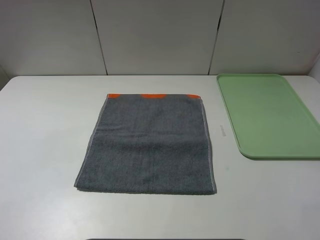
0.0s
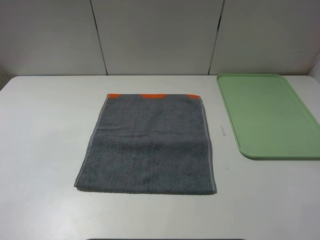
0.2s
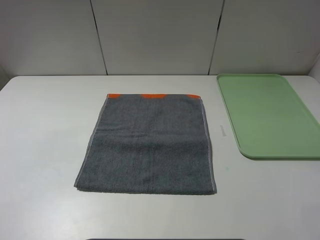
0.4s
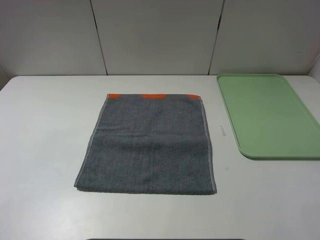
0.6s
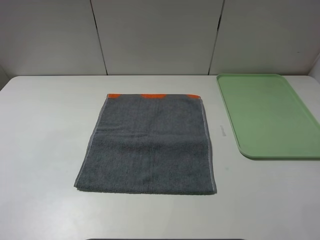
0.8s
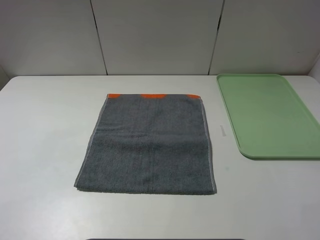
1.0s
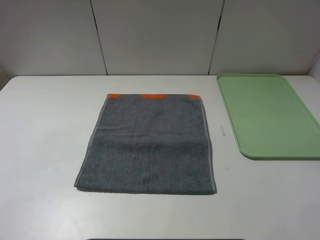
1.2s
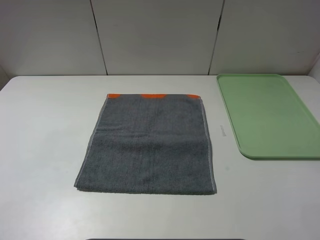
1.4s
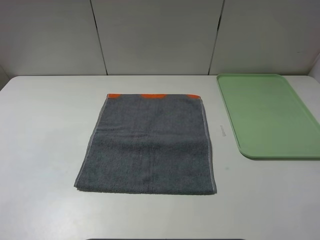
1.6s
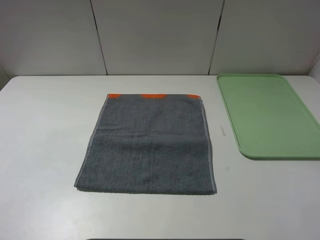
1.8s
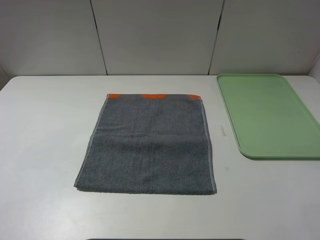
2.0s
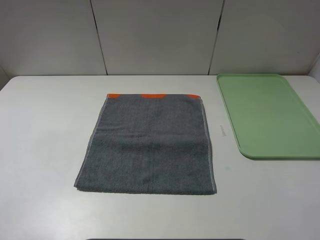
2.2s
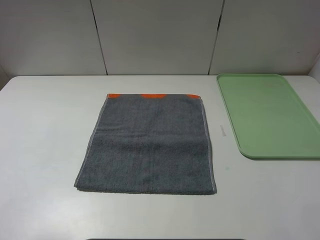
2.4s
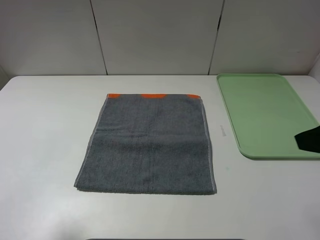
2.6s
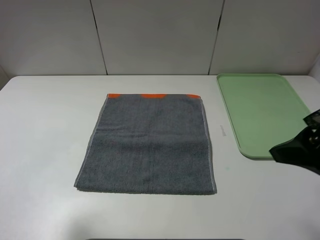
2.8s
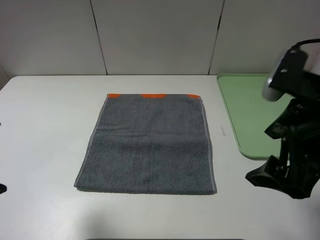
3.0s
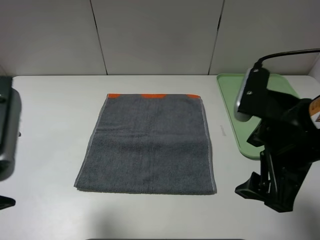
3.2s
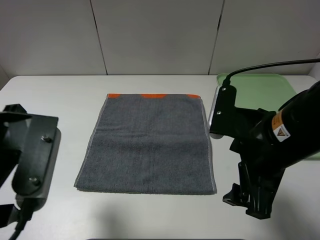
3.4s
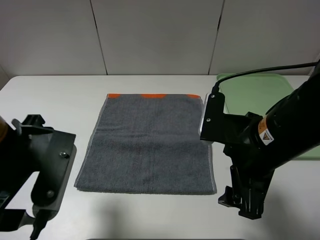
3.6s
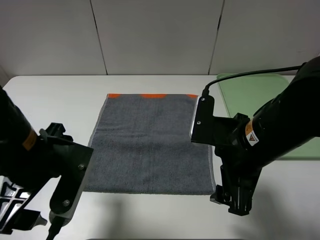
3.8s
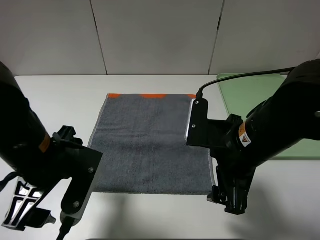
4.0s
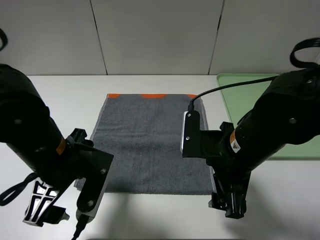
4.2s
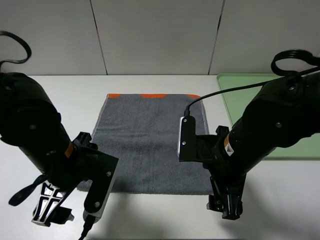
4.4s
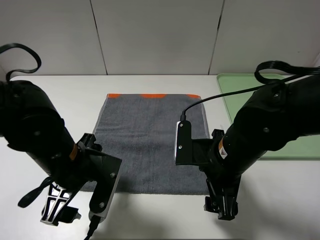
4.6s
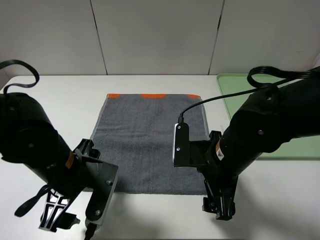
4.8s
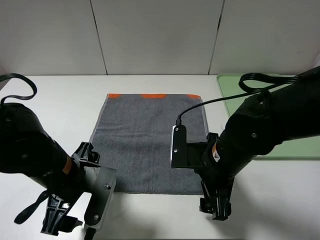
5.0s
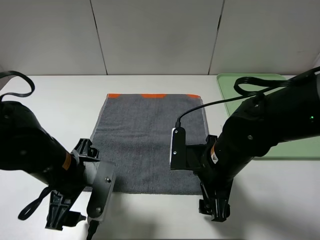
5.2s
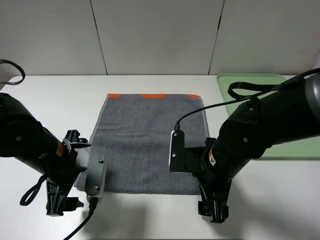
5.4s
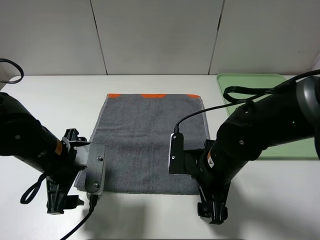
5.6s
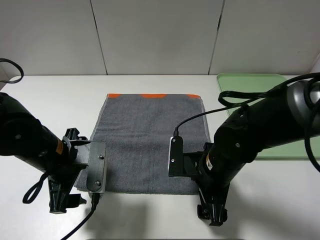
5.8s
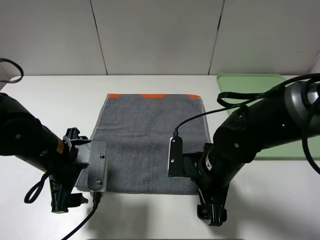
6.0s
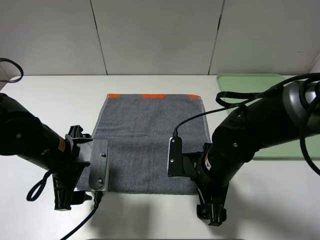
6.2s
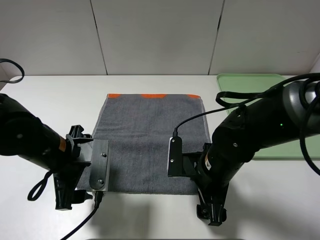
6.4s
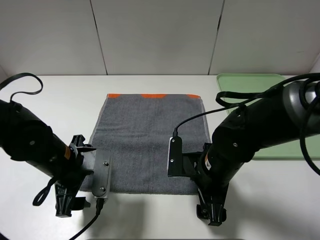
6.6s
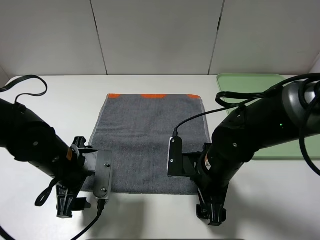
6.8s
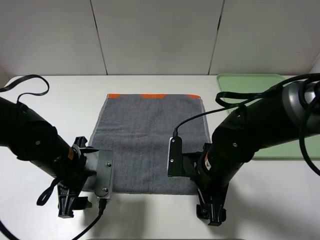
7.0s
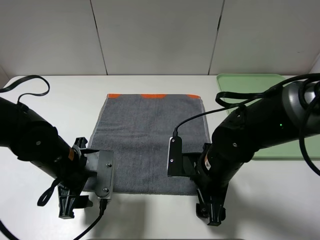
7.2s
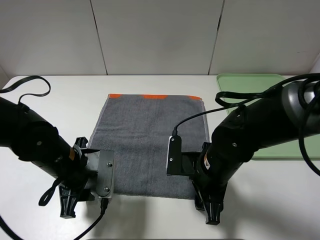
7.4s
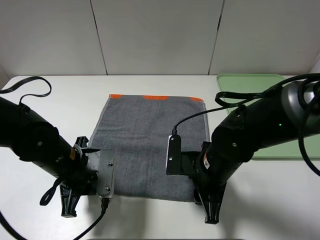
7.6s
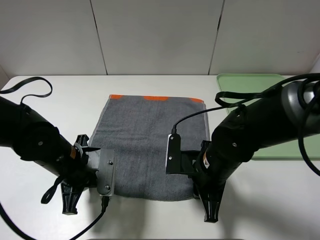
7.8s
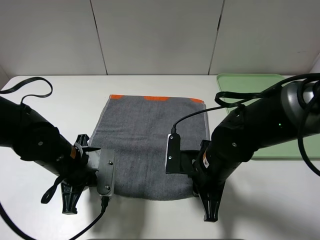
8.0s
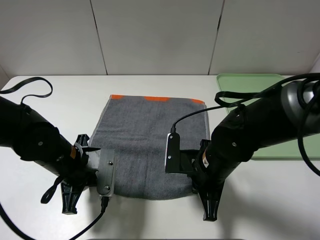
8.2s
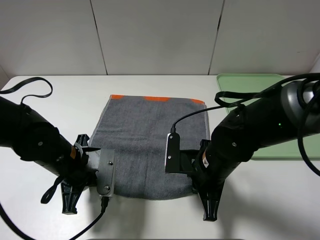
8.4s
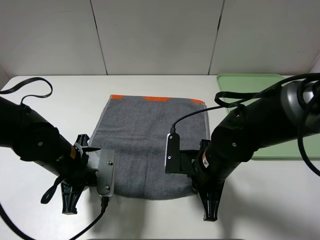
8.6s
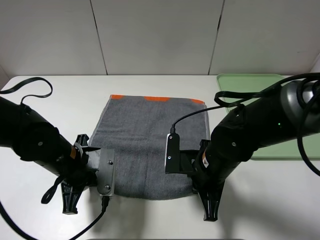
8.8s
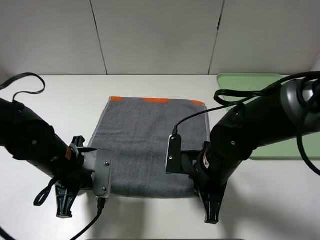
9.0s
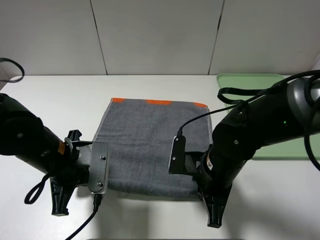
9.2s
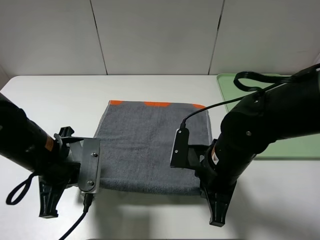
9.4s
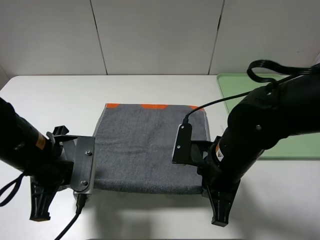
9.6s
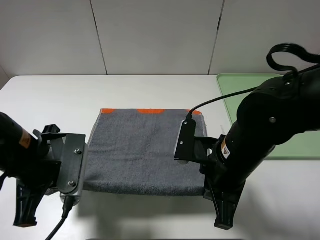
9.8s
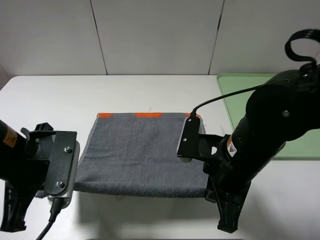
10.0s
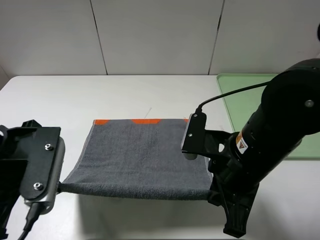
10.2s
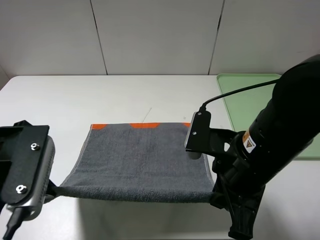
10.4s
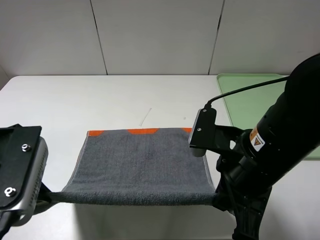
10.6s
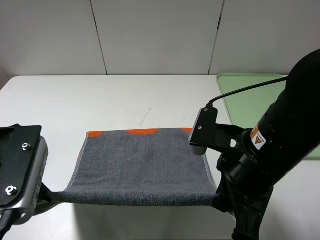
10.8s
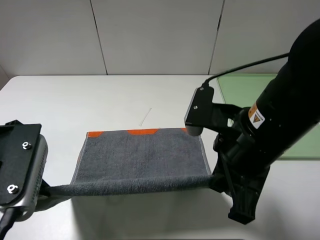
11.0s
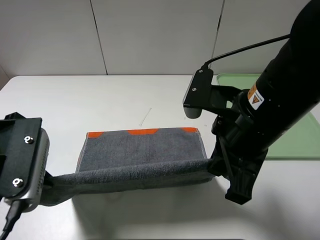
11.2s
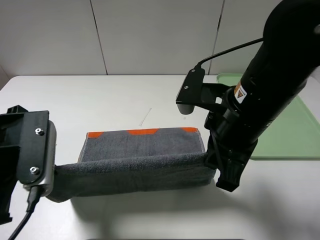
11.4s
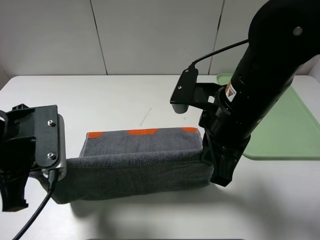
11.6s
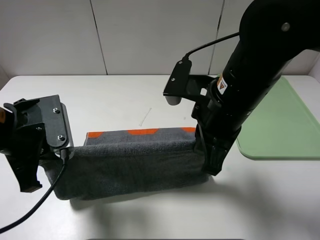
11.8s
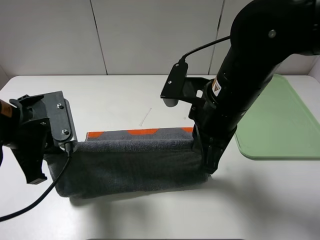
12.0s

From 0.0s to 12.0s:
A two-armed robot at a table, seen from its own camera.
From 0.0s to 1.6s: Both grippers stay put.
From 1.6s to 3.0s: The right gripper heads forward and to the left, covering roughly 20 cm. The left gripper travels forward and to the right by approximately 15 cm.
From 3.0s to 4.4s: The right gripper travels downward and to the left by about 15 cm. Meanwhile the left gripper is displaced downward and to the right by approximately 20 cm.
From 4.4s to 6.0s: The right gripper moves downward, about 5 cm.
From 6.0s to 7.6s: The left gripper closes up. Meanwhile the right gripper closes its fingers.
From 7.6s to 9.0s: The right gripper closes.
From 9.0s to 10.4s: The left gripper heads upward and backward, covering about 15 cm. The right gripper moves upward, about 10 cm.
From 10.4s to 12.0s: The two grippers go approximately 5 cm forward.

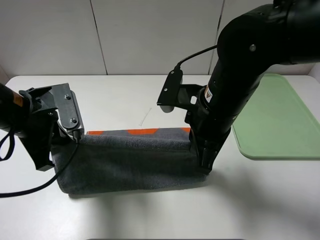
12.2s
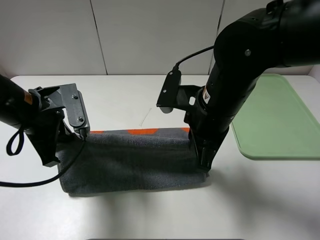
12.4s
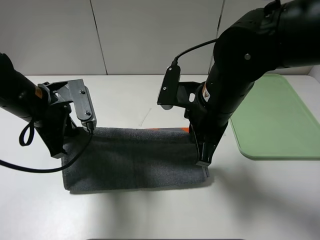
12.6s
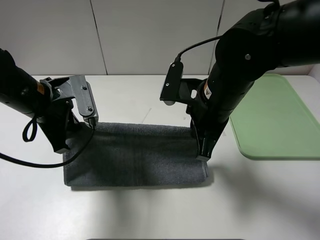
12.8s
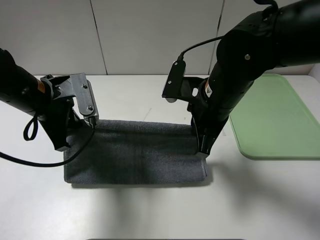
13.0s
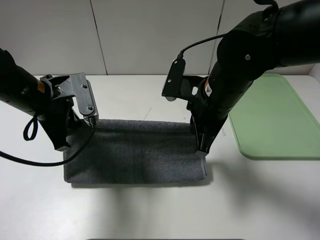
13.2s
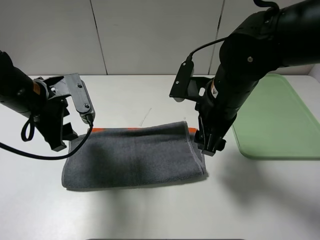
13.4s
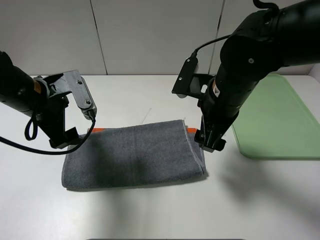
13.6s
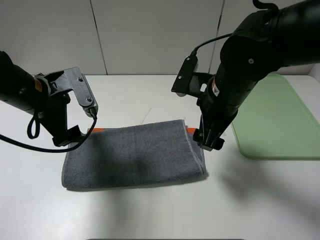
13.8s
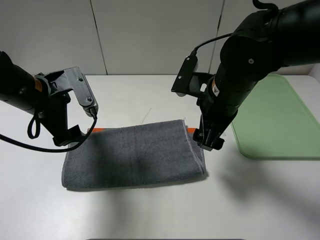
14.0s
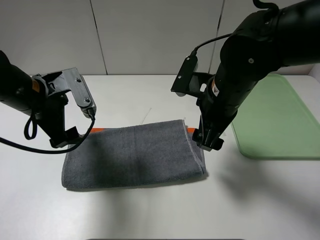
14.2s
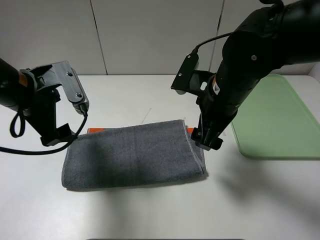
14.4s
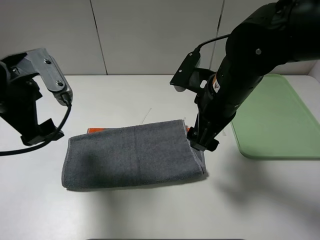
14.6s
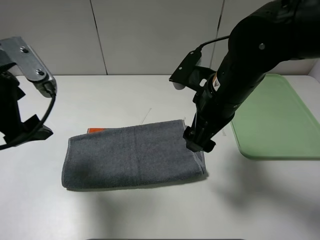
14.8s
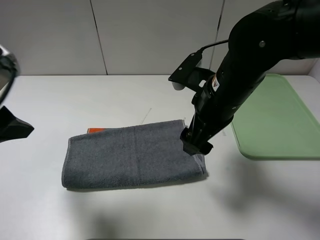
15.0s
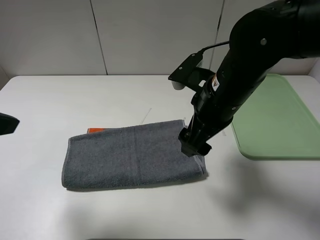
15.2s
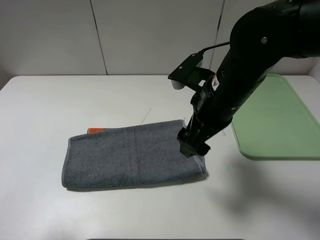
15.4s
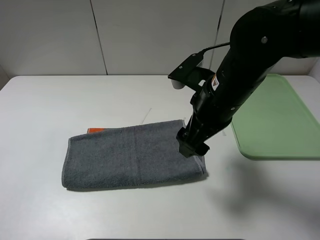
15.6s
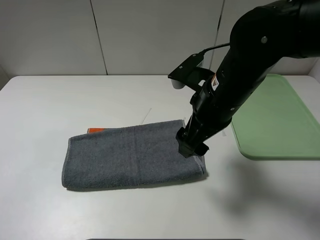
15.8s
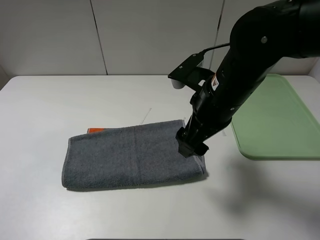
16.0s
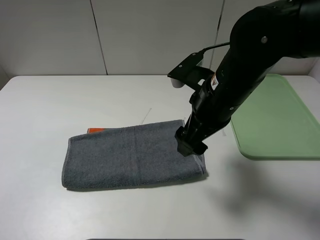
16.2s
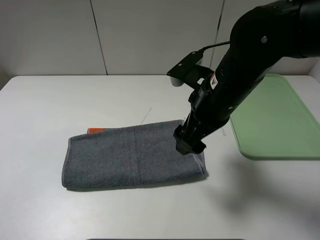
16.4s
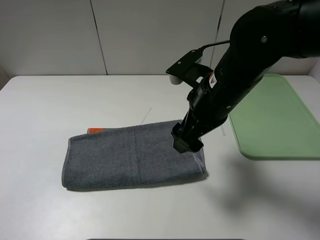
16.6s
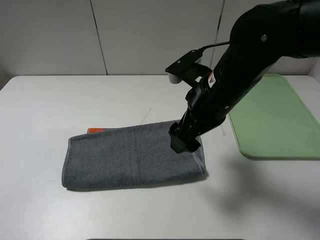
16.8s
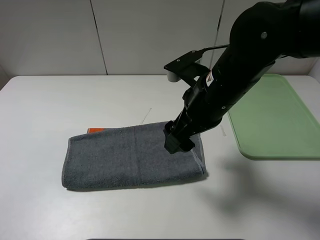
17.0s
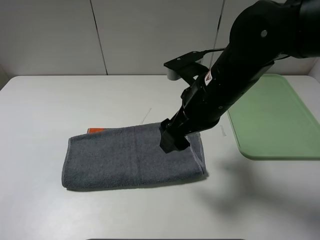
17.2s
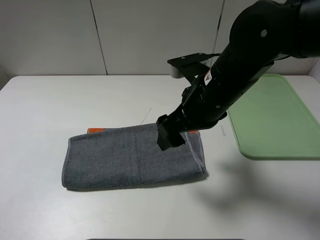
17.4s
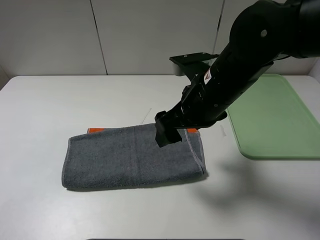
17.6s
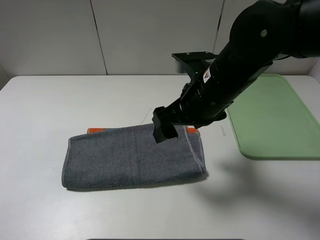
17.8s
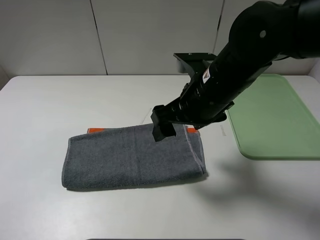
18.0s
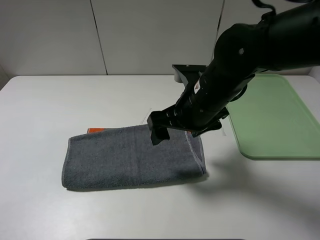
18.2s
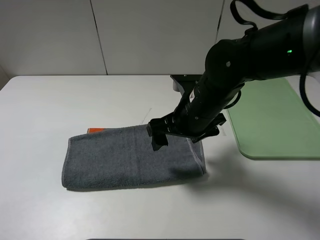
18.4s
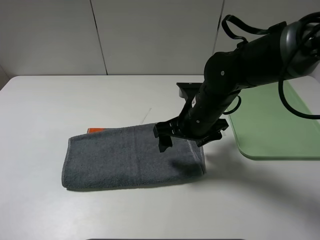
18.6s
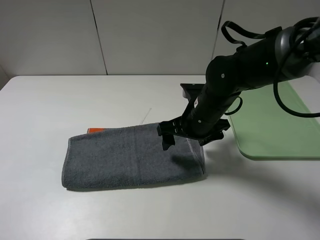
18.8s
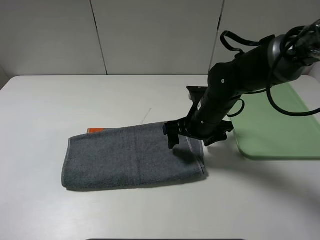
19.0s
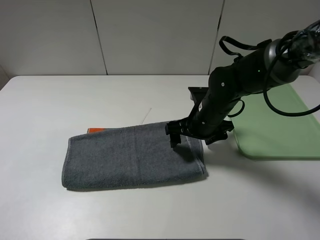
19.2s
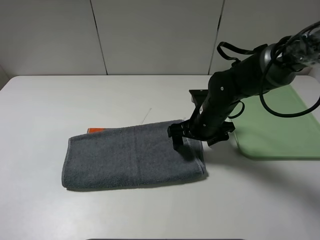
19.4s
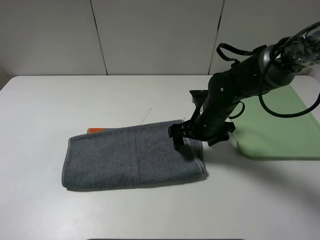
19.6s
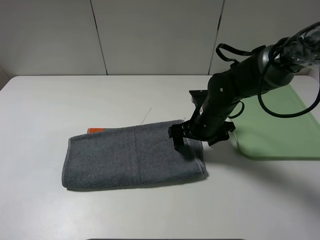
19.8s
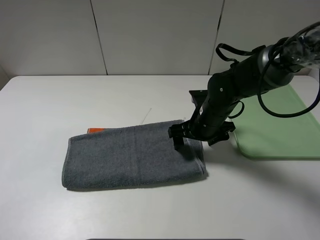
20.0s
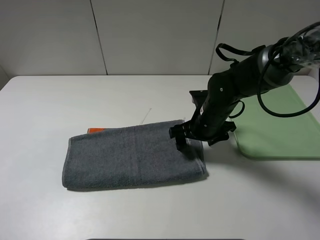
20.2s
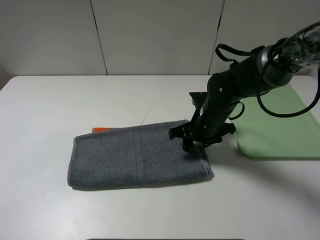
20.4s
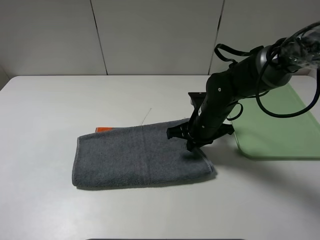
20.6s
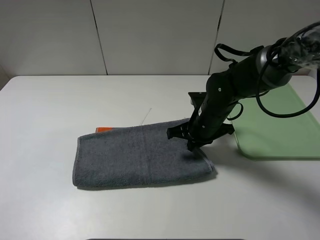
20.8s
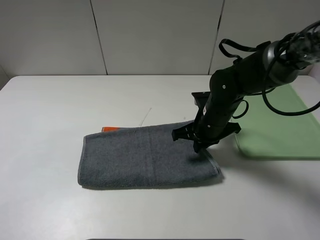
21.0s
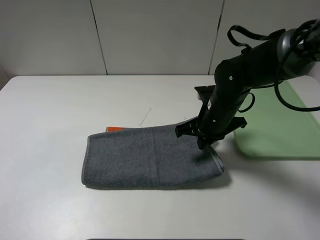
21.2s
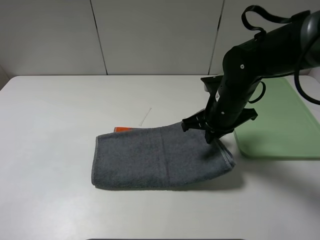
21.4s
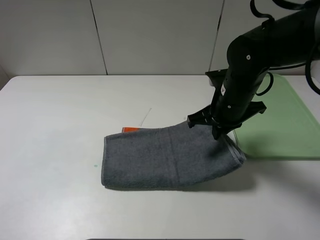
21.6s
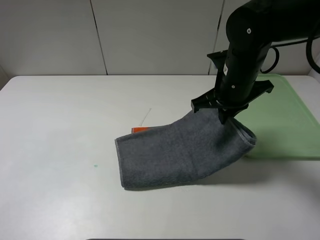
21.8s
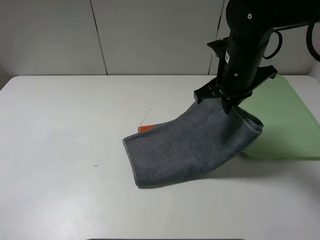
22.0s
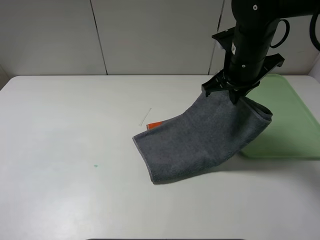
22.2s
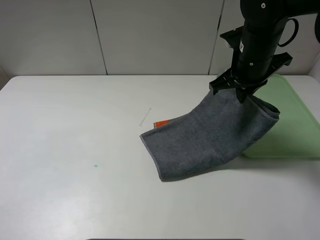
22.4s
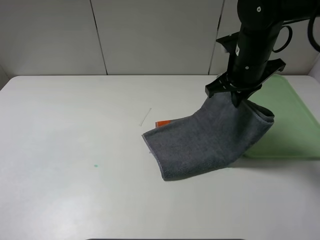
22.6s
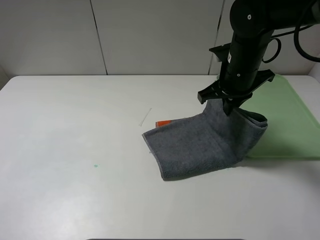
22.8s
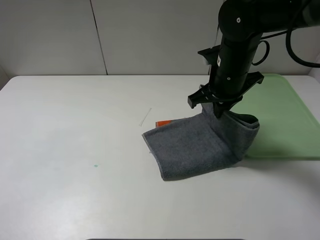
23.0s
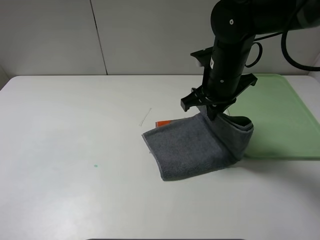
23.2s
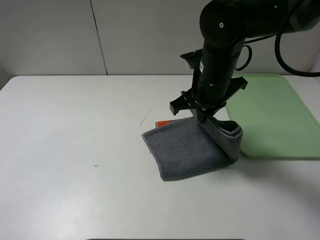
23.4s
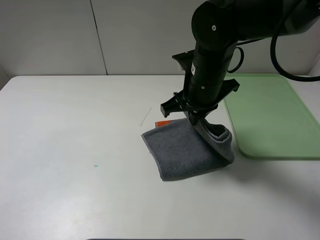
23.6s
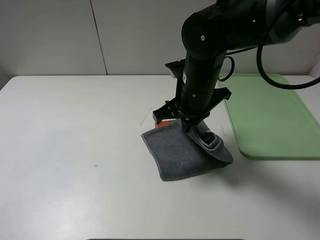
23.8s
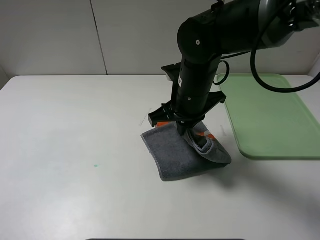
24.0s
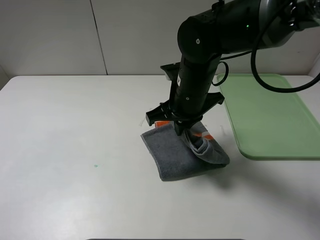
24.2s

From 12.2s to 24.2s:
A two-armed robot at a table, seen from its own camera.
From 12.2s to 13.8s: The left gripper opens up, while the right gripper opens its fingers.
From 13.8s to 15.2s: The left gripper moves backward, upward and to the left, some 20 cm.
From 15.2s to 16.6s: The left gripper heads backward, covering roughly 15 cm.
From 18.2s to 19.8s: The right gripper moves downward and forward, some 10 cm.
From 19.8s to 21.2s: The right gripper closes.
From 21.2s to 22.6s: The right gripper moves upward, about 10 cm.
From 22.6s to 24.2s: The right gripper moves to the left, approximately 10 cm.
